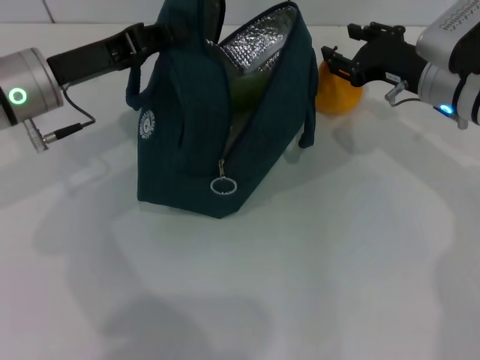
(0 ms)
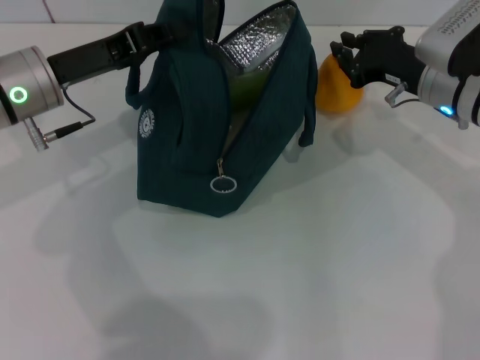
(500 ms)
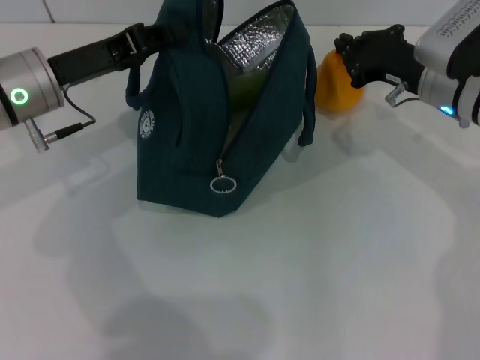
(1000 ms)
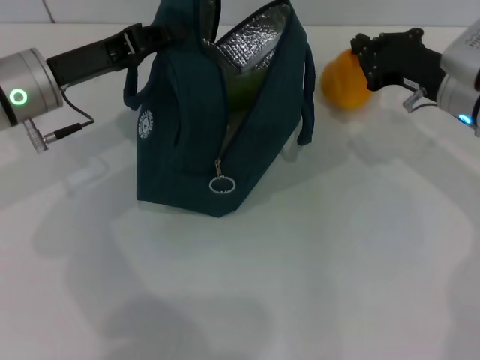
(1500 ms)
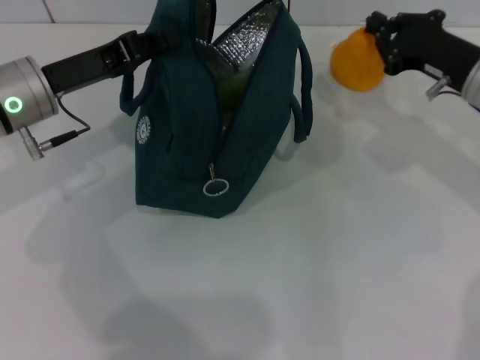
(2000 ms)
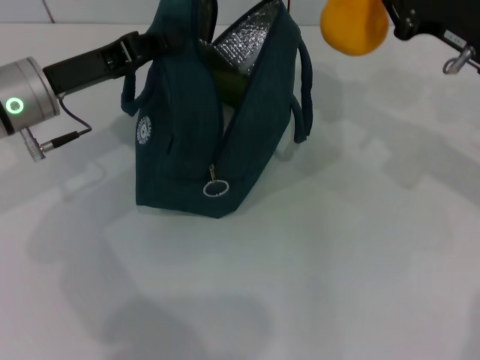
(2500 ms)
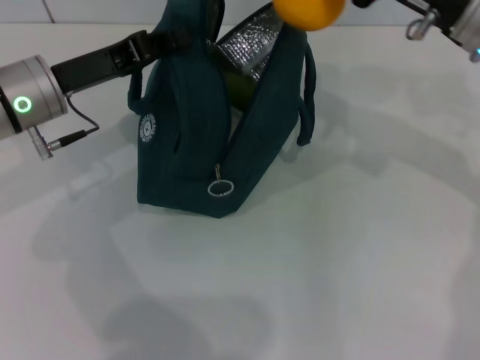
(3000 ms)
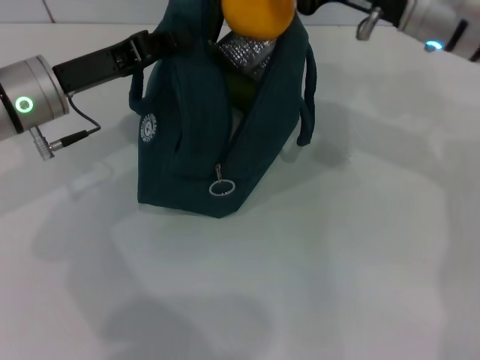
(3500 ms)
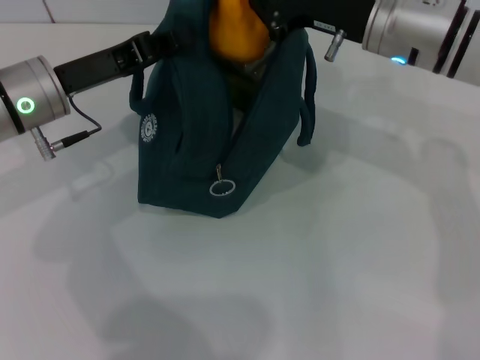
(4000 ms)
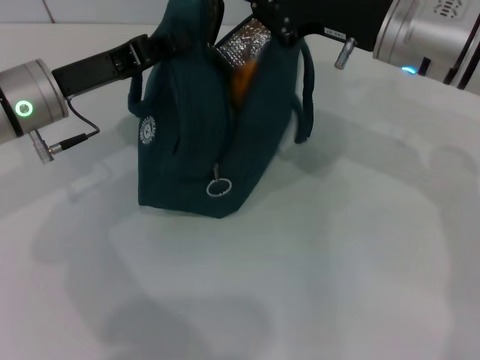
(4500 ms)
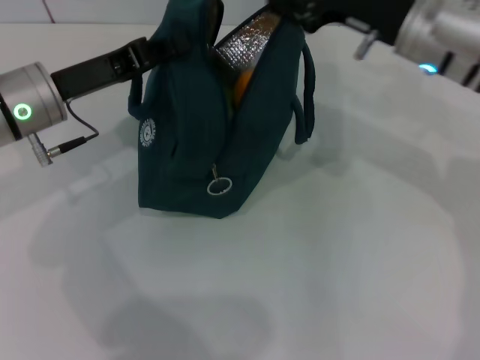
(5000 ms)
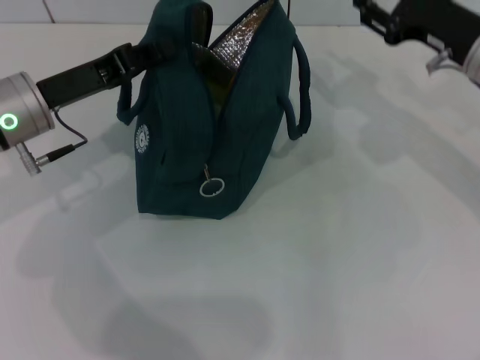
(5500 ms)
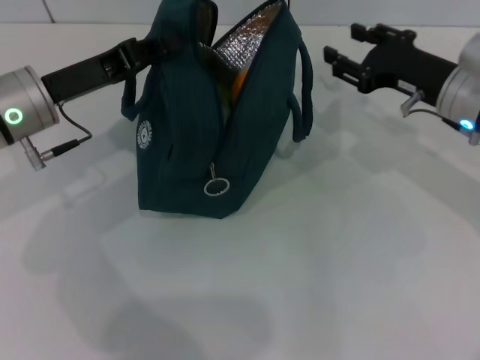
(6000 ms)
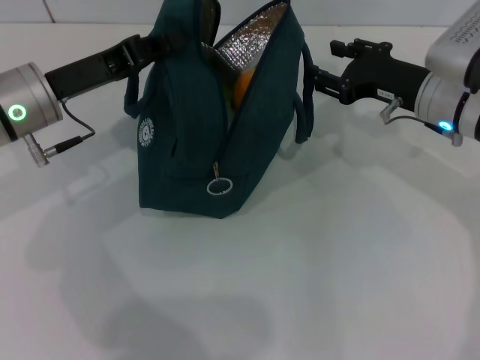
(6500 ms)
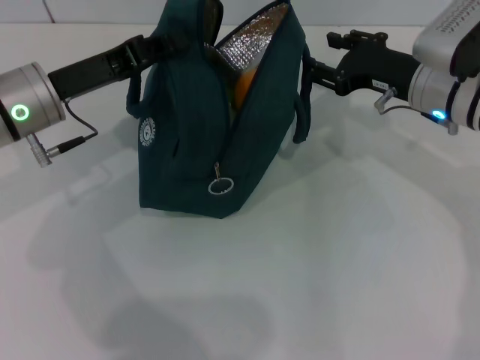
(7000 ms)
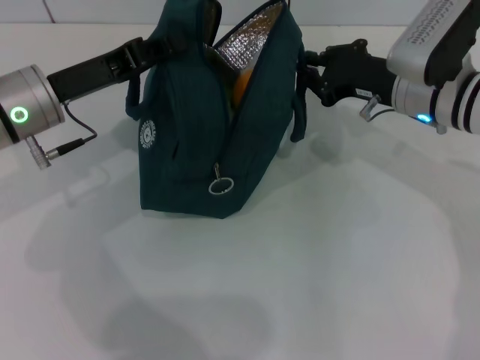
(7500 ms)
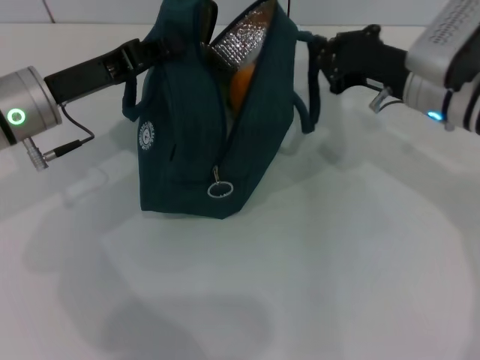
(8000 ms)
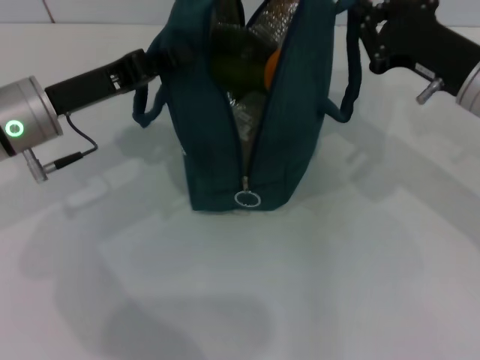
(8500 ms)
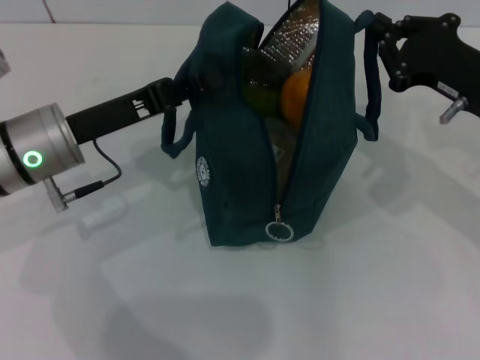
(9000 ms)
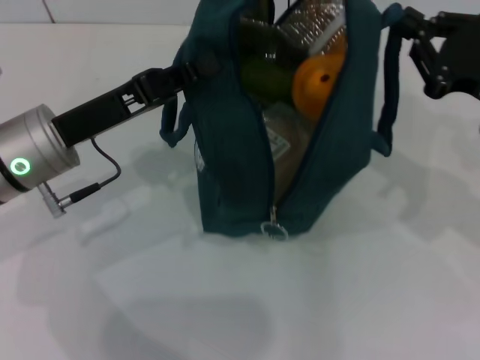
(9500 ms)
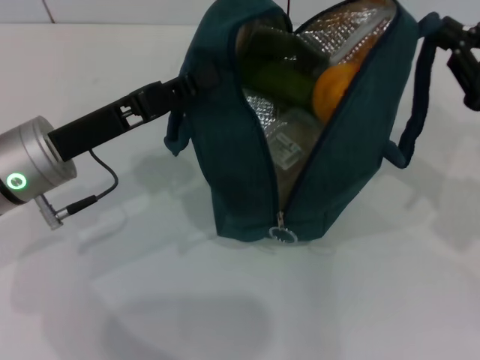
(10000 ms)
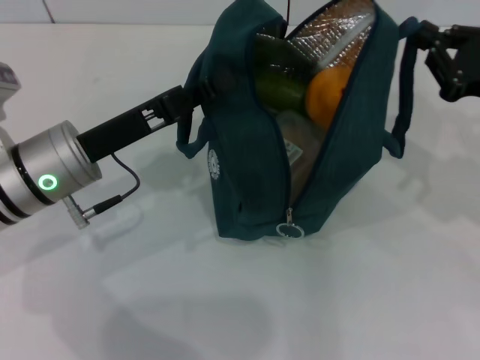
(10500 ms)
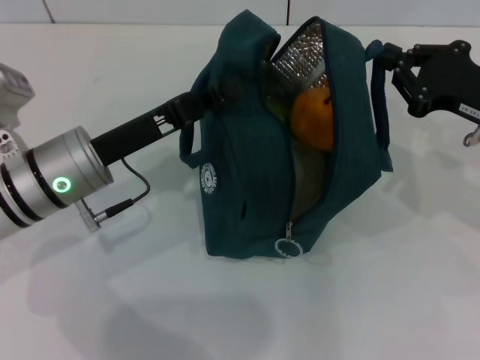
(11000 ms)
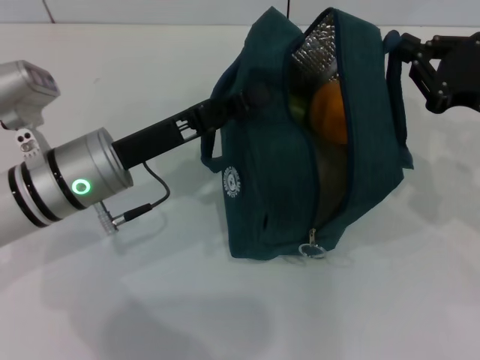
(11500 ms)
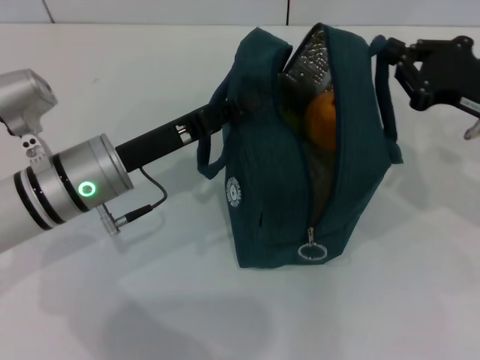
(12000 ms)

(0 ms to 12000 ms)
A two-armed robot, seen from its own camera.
0 ms - 2000 ms: The right gripper closes up.
2000 ms - 4000 ms: The right gripper heads to the left and upward, covering some 15 cm.
4000 ms - 6000 ms: The right gripper heads to the right and downward, covering about 10 cm, and opens its fingers.
6000 ms - 8000 ms: The right gripper closes up.
8000 ms - 10000 ms: The right gripper moves to the right and backward, approximately 15 cm. The left gripper goes roughly 5 cm backward.
10000 ms - 12000 ms: The left gripper ends up approximately 5 cm from where it was, while the right gripper shifts by some 5 cm.

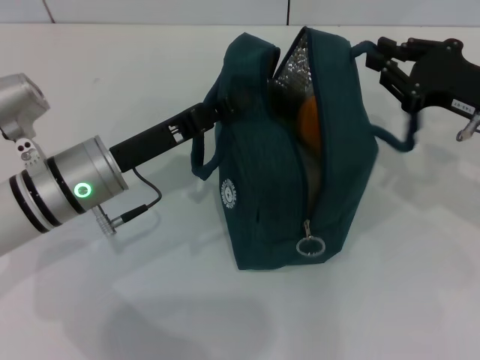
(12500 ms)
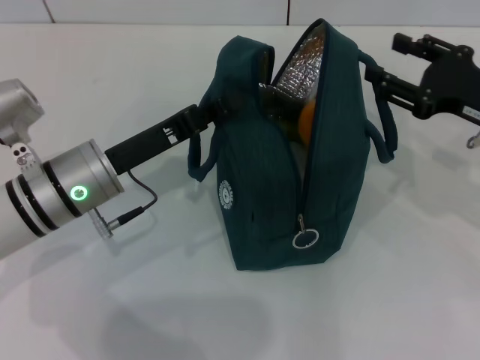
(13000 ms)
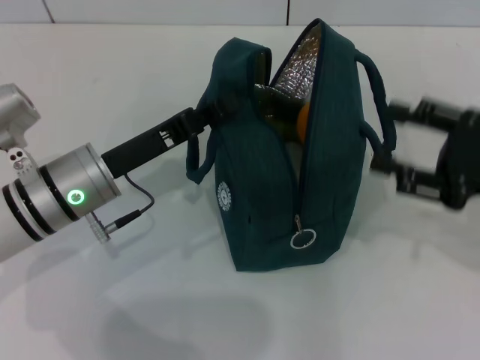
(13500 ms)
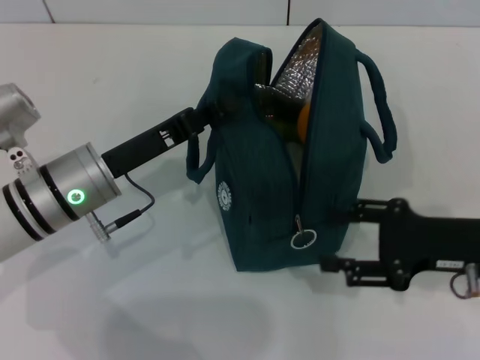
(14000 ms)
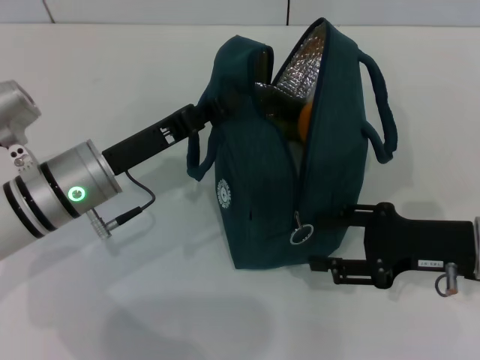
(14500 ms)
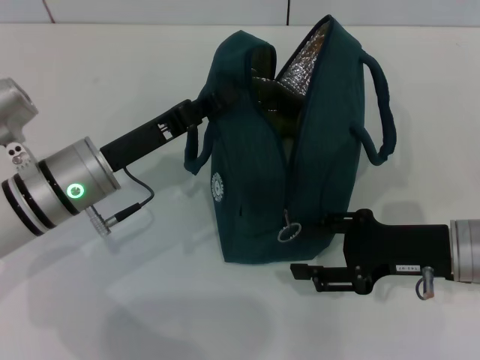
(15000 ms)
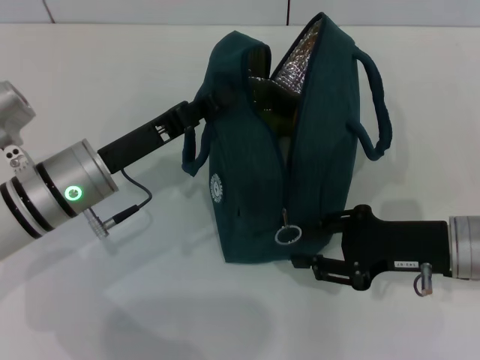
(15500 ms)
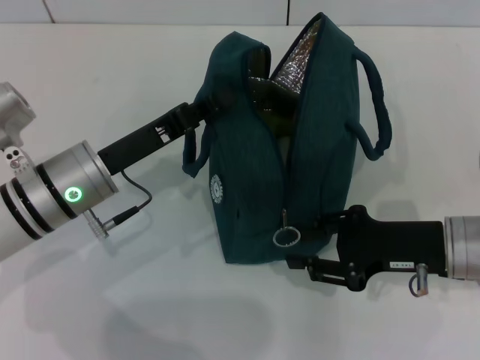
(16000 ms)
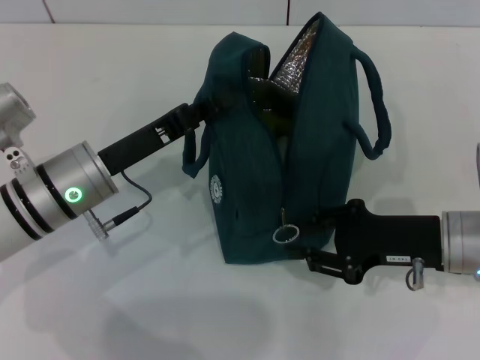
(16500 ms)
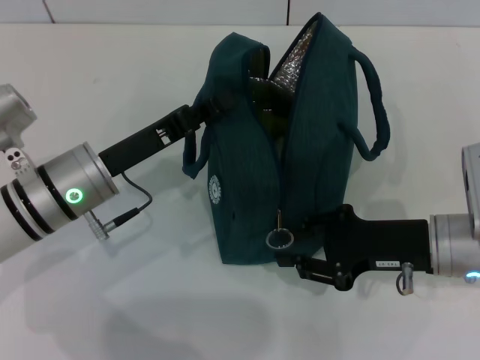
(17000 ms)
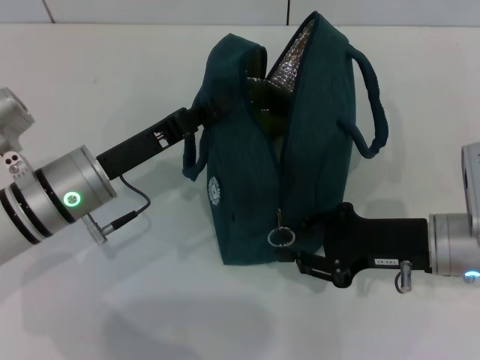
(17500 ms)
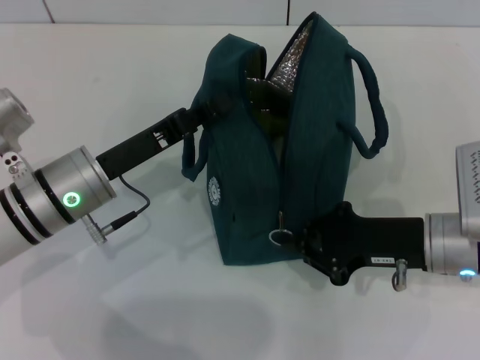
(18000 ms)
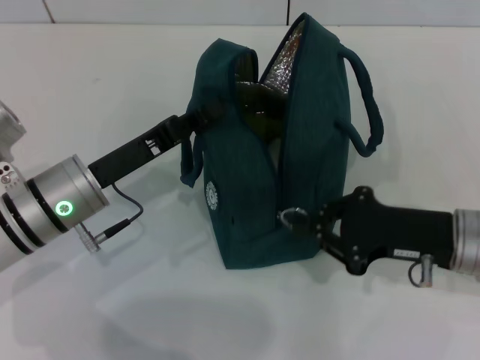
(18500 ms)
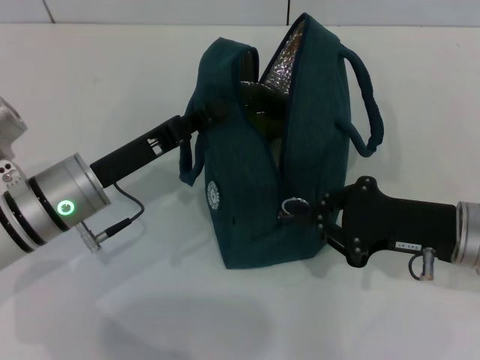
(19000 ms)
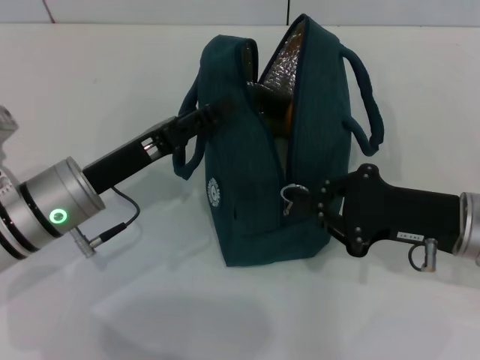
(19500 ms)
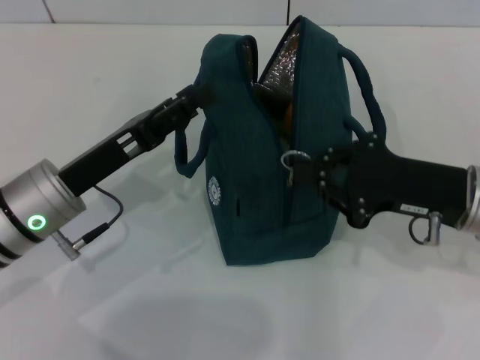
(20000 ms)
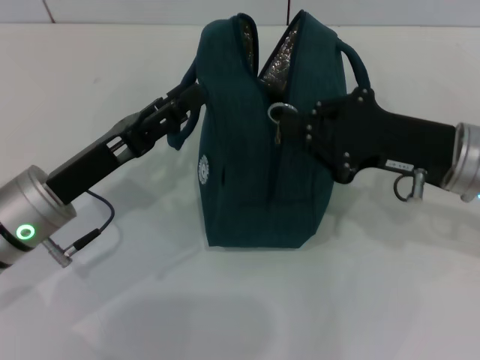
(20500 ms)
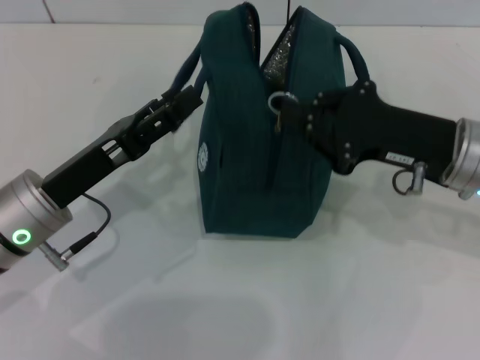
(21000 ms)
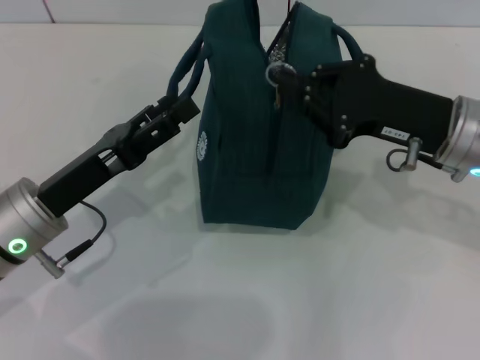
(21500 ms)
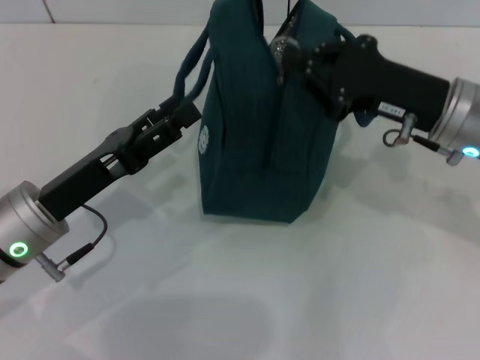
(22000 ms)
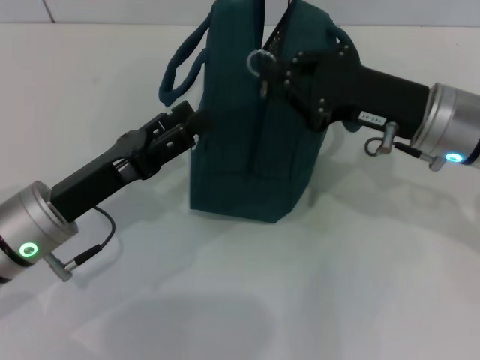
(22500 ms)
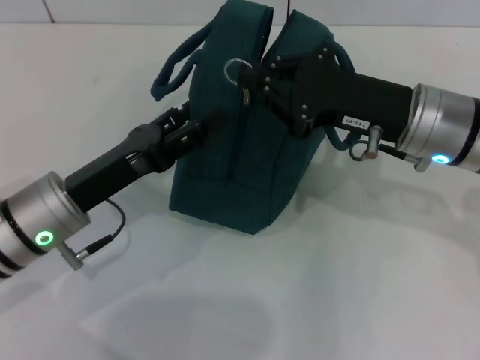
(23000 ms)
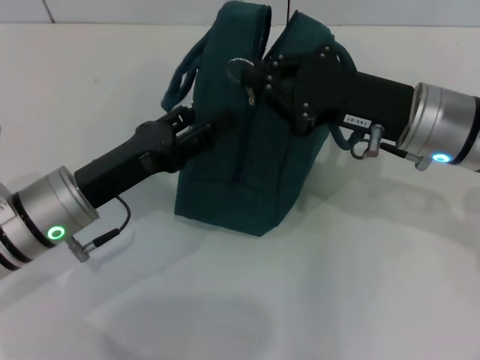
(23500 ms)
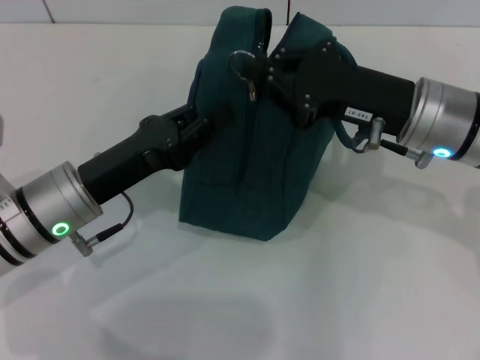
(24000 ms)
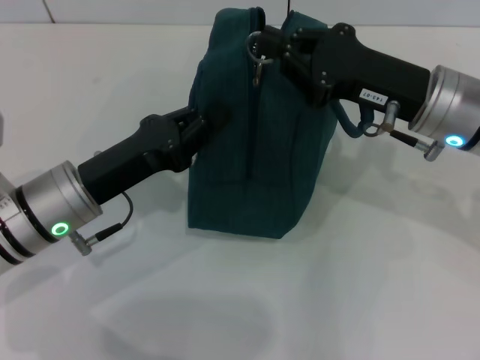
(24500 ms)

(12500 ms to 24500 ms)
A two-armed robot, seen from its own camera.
Step, 13000 ms - 20000 ms: Hold the lunch bag with your left hand.
12500 ms - 14500 ms: The right gripper moves backward and downward, some 10 cm, and opens.
14500 ms - 16500 ms: The right gripper closes.
16500 ms - 18500 ms: The right gripper closes its fingers.
18500 ms - 20500 ms: The right gripper is displaced upward by roughly 5 cm. The left gripper opens.
22500 ms - 24500 ms: The left gripper closes.

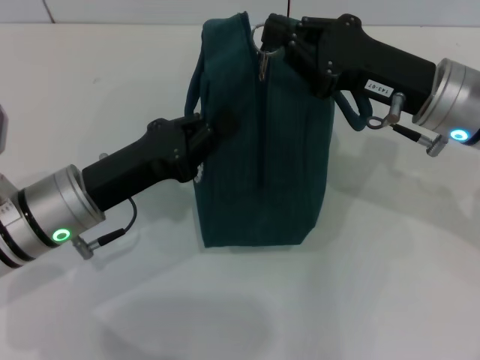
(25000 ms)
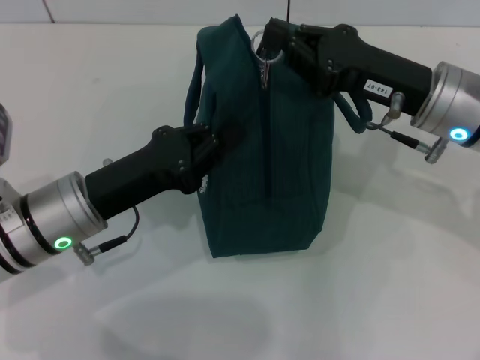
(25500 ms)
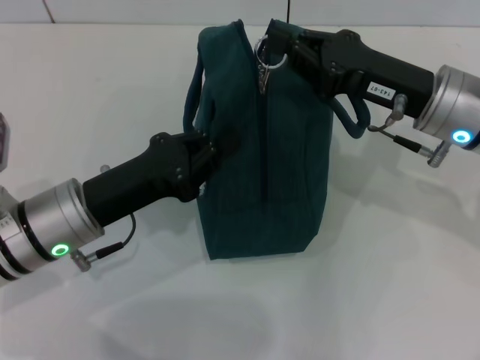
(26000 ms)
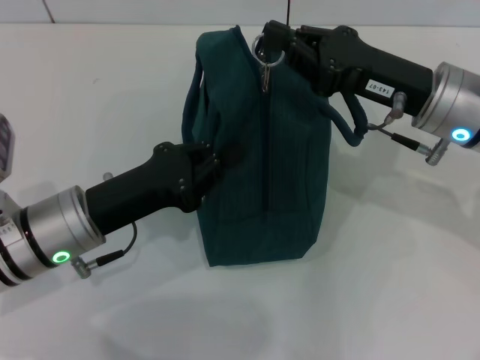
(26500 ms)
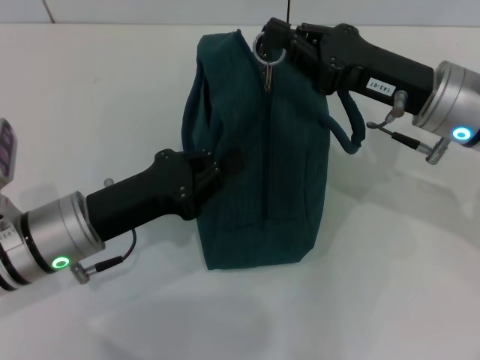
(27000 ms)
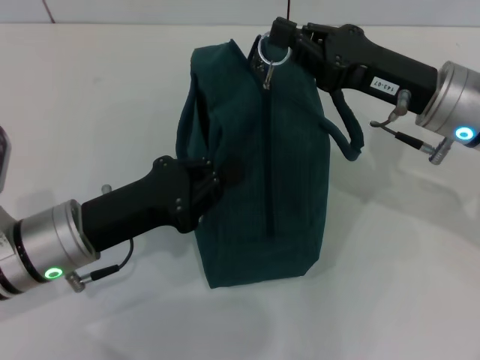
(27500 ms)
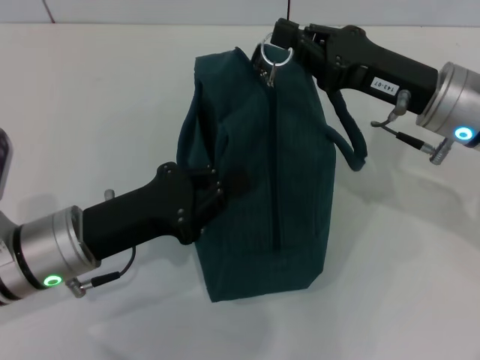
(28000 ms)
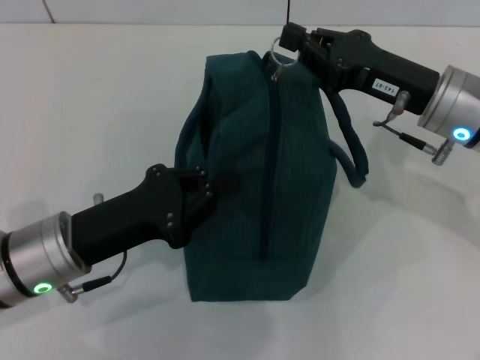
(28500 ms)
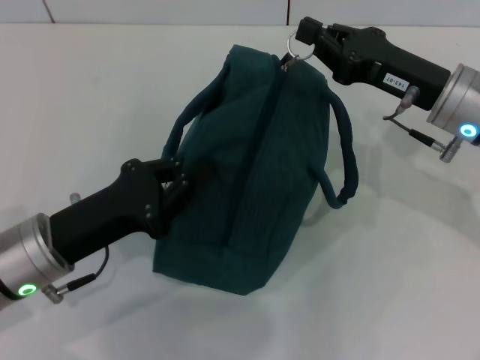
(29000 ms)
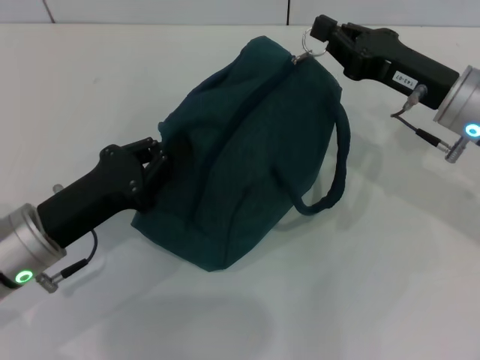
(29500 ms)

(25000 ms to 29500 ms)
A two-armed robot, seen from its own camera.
25000 ms - 27000 ms: There are only small adjustments of the grippers.
